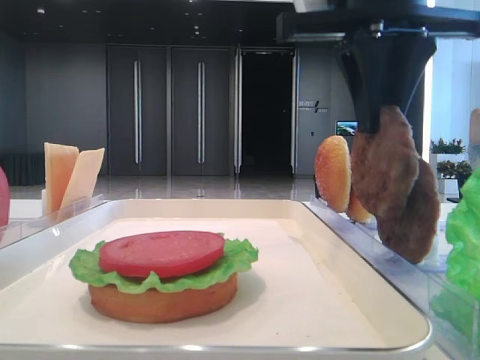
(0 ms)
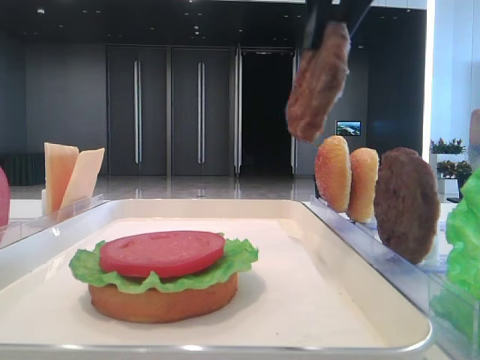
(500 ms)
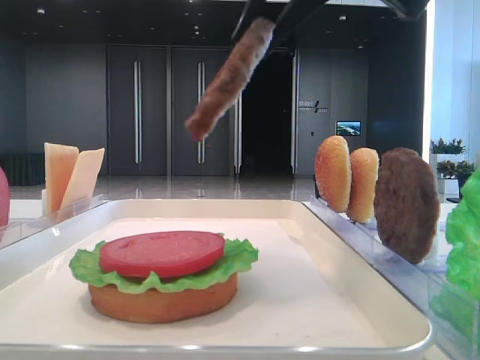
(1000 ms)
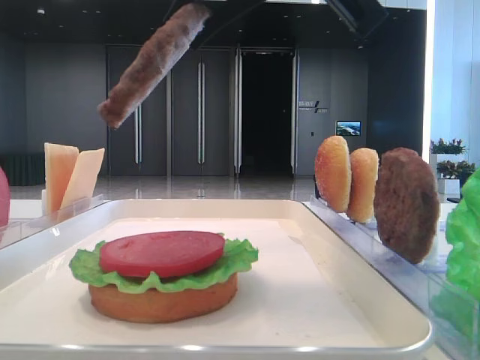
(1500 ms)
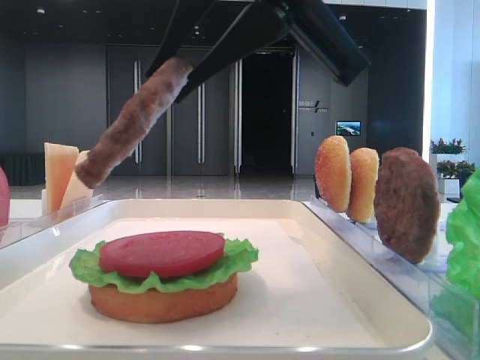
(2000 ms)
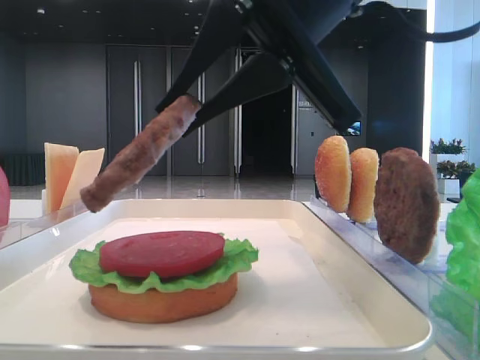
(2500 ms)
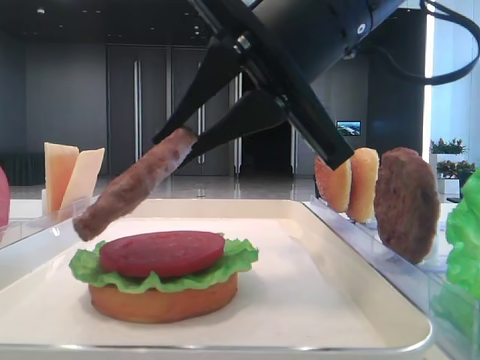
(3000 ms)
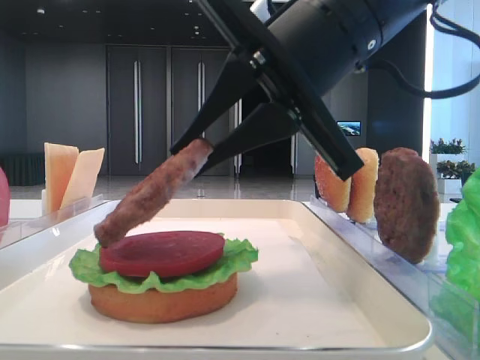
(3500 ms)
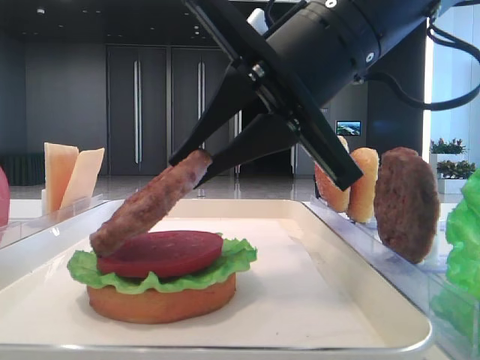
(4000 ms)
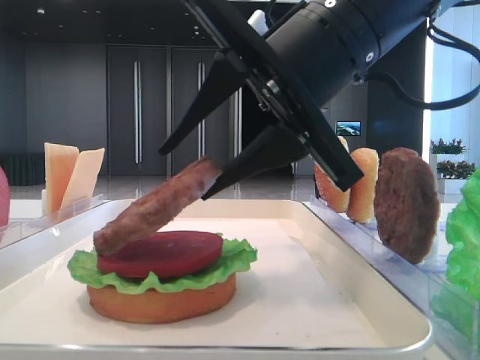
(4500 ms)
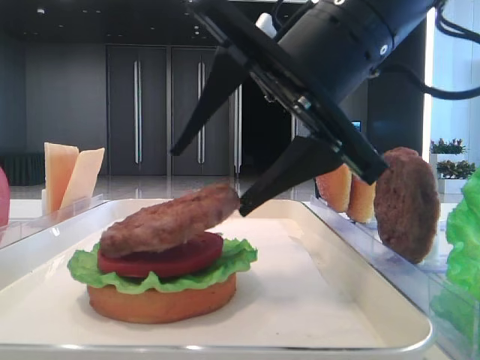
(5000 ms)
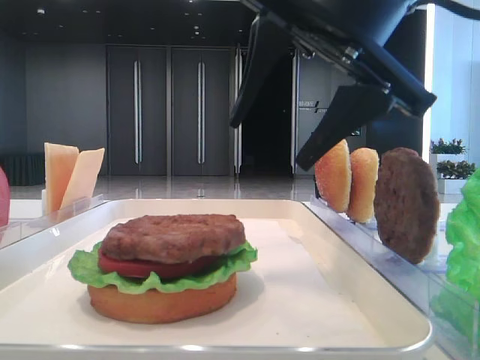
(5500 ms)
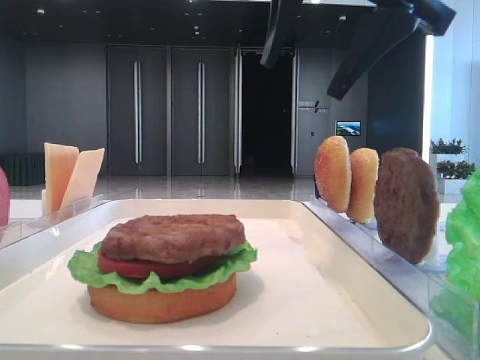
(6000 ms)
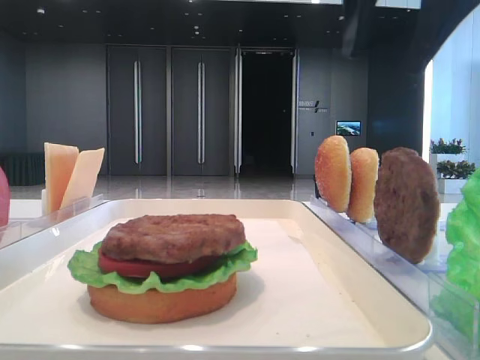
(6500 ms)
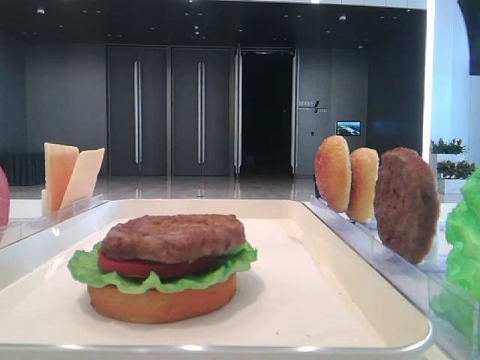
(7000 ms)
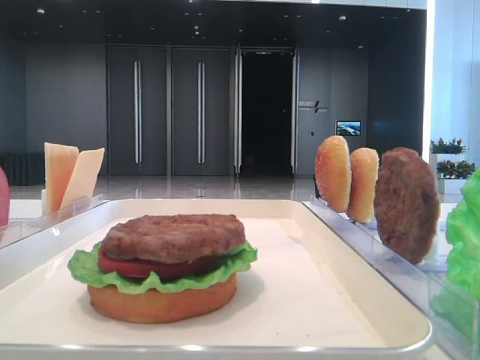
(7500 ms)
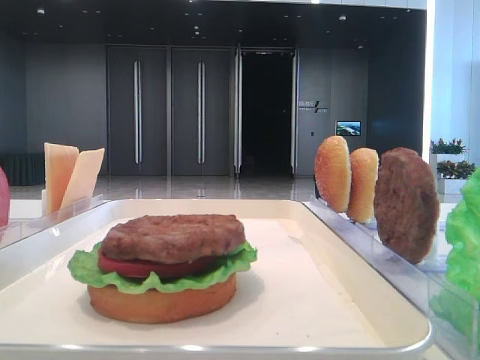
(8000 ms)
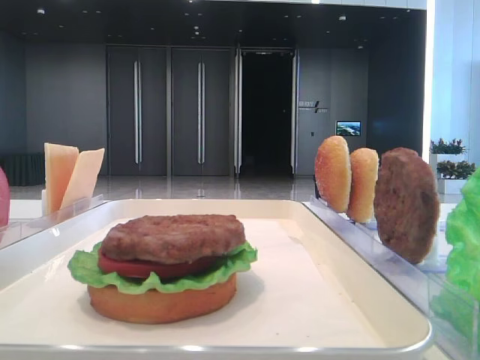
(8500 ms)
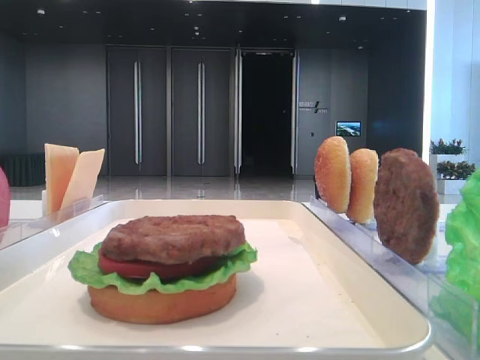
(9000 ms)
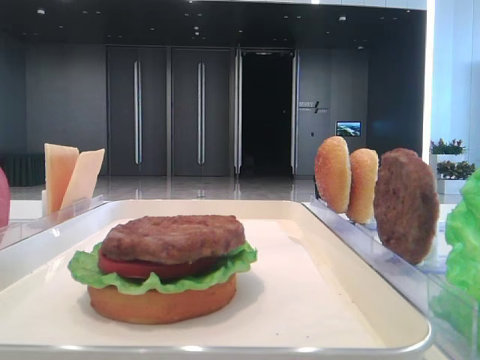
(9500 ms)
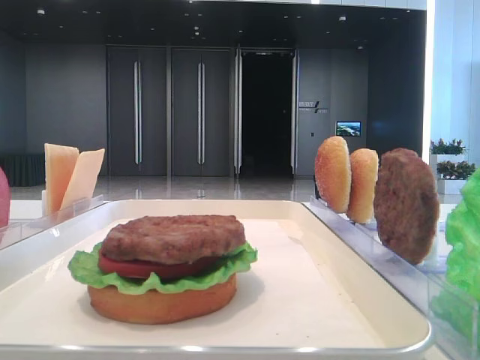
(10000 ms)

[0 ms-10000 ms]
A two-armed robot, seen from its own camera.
Step, 0 ms to 5000 ms: Place the patty on the tomato slice with the right hand.
0 ms to 2000 ms: The right gripper is displaced backward and to the left by some 10 cm.
2000 ms to 4000 ms: The right gripper travels downward and forward by approximately 10 cm.
4000 ms to 6000 ms: The right gripper travels upward by about 10 cm, and opens.
6000 ms to 8000 ms: The right gripper heads to the right, covering about 20 cm.

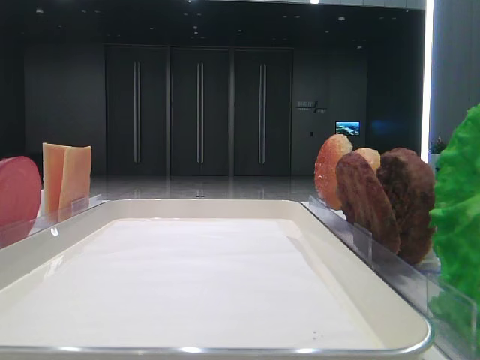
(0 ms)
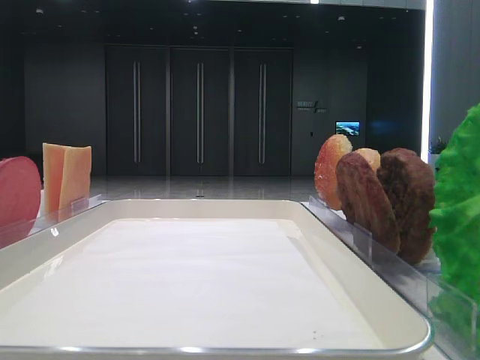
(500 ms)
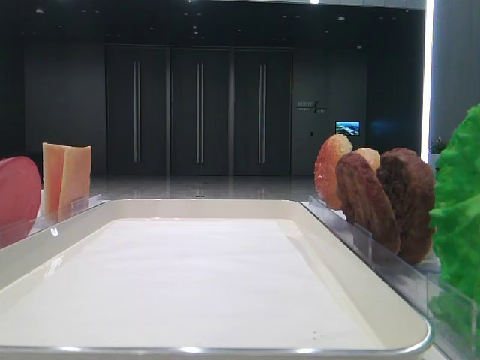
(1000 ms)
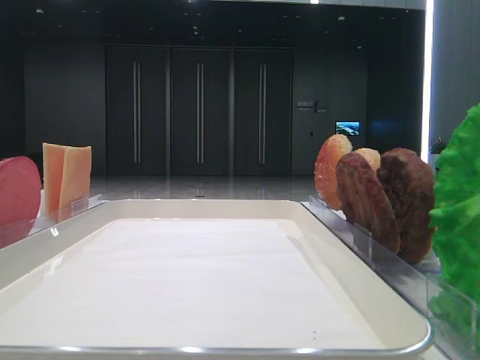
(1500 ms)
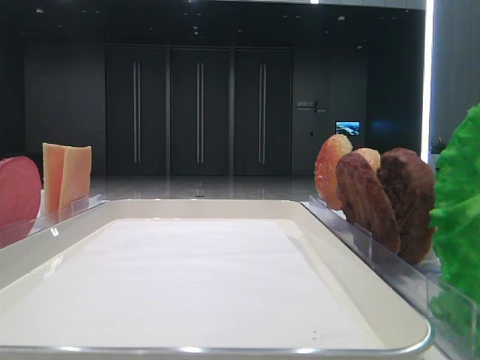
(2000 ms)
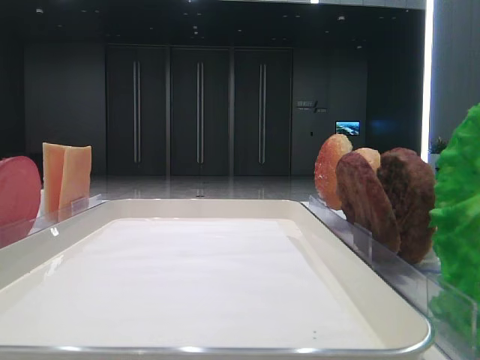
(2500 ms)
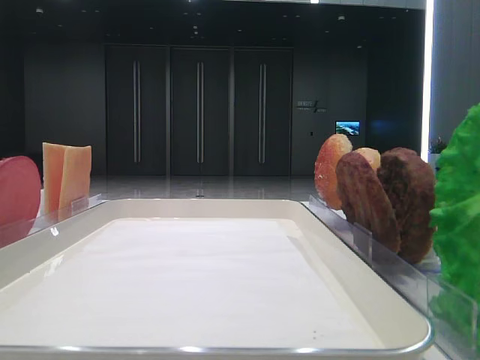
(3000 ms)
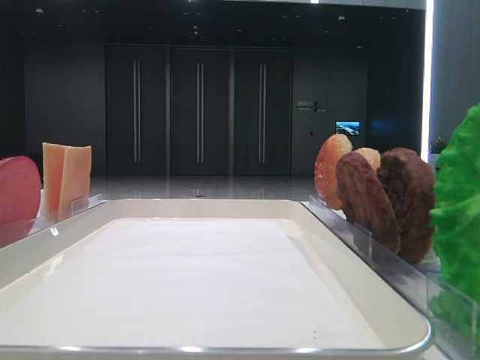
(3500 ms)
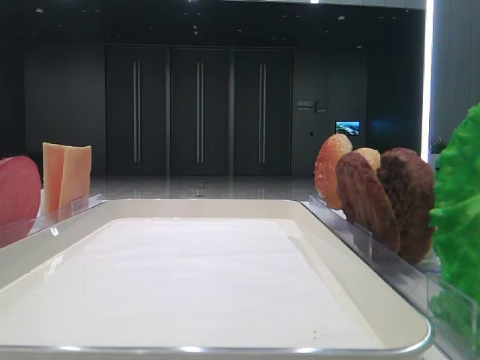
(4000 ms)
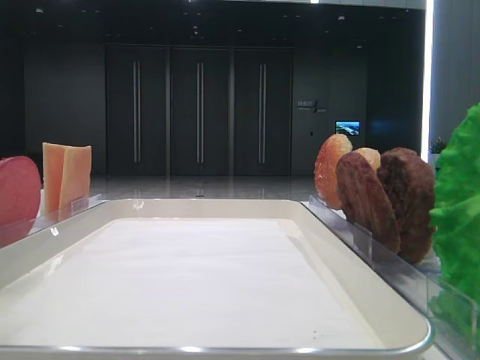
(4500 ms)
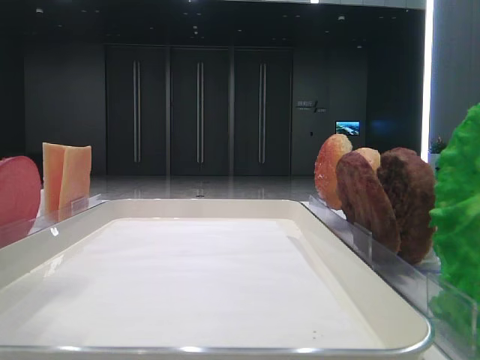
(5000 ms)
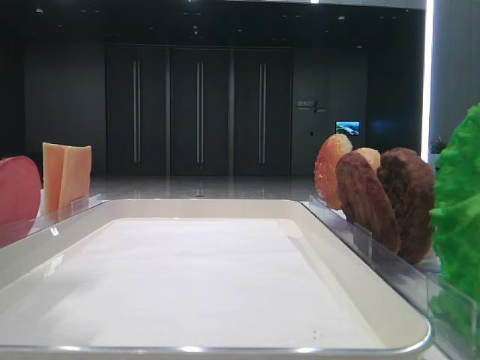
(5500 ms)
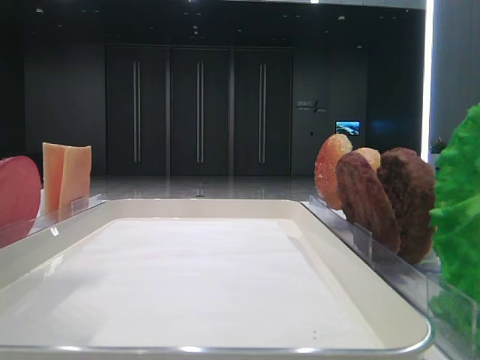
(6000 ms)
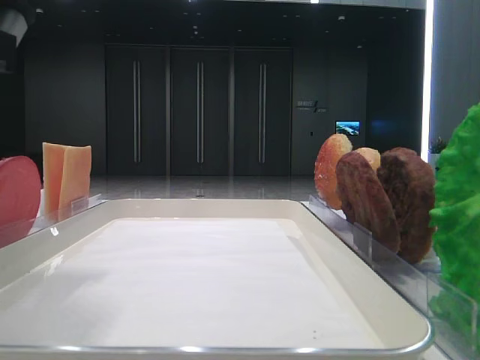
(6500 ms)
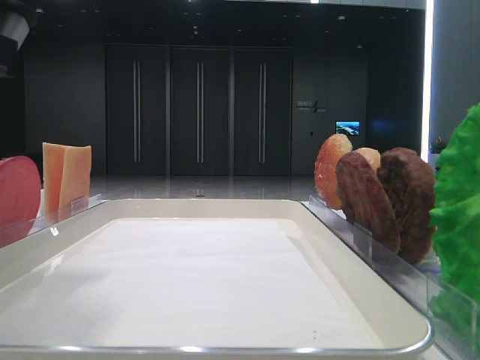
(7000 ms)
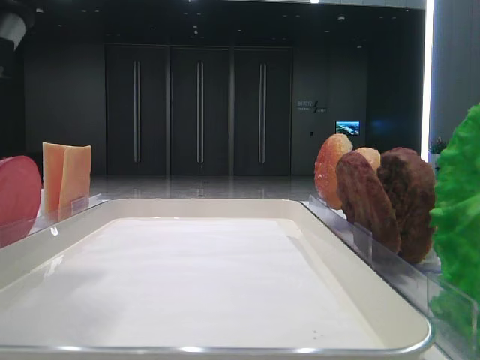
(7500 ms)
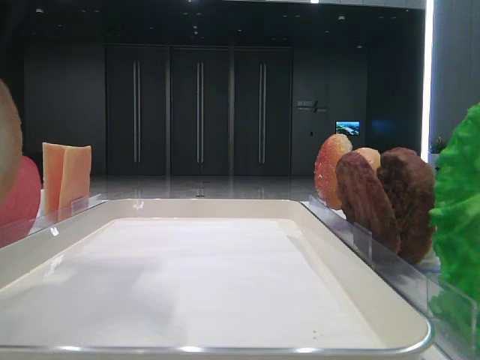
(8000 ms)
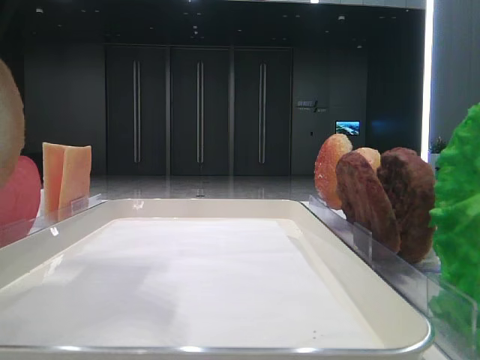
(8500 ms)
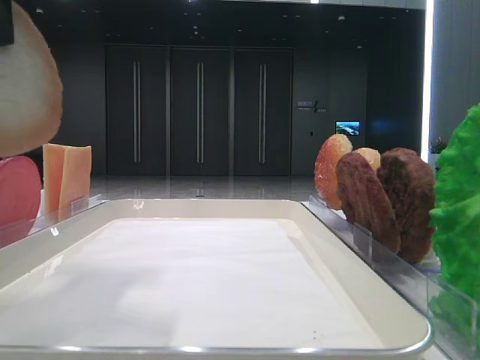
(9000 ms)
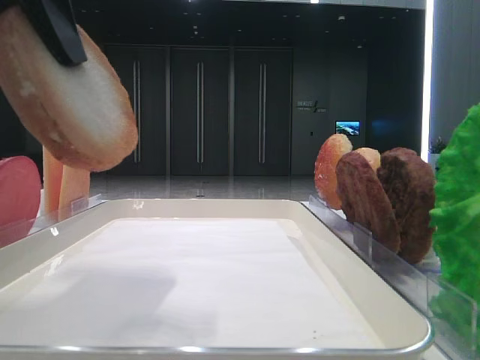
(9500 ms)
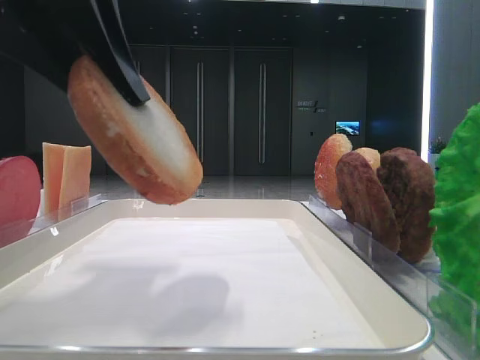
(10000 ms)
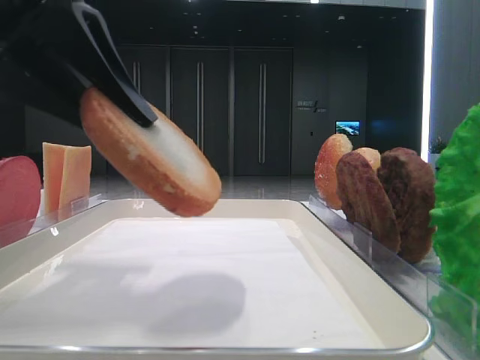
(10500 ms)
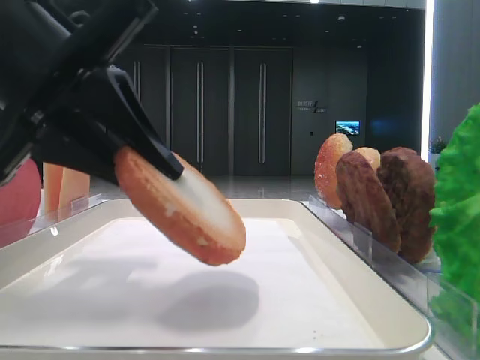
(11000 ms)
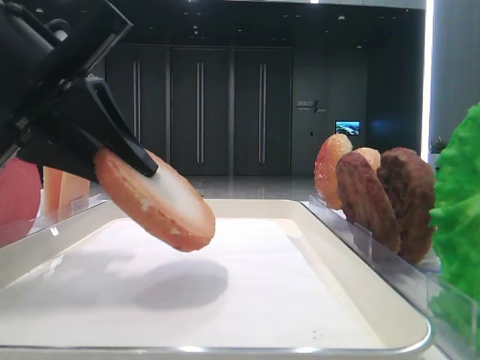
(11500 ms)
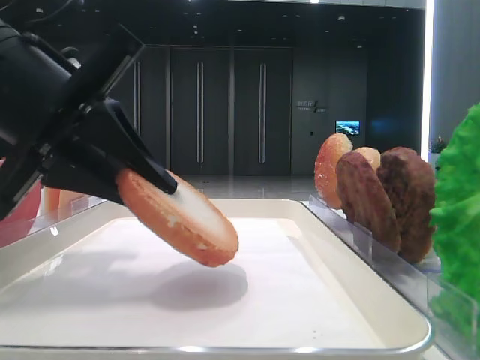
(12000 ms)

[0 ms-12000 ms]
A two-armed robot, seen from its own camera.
Step, 0 ms to 7000 ms: Pick up the bottom bread with the left hand.
4000 ms to 6000 ms: The left gripper moves to the right, roughly 15 cm.
6000 ms to 8000 ms: The left gripper closes its fingers.
10000 ms to 12000 ms: The left gripper is displaced downward by roughly 10 cm.

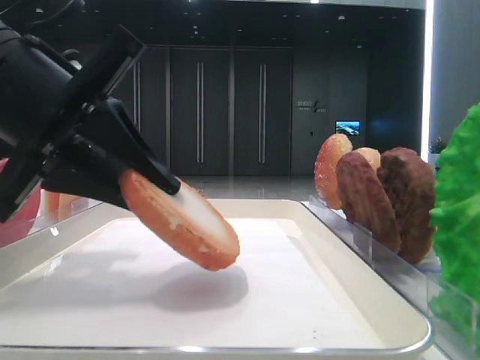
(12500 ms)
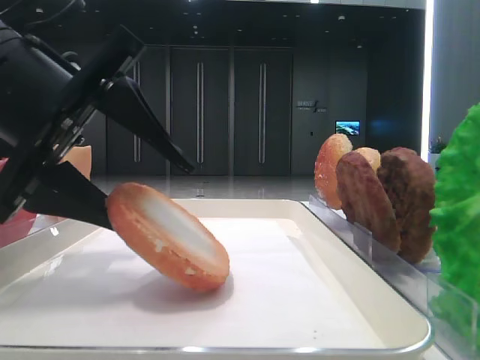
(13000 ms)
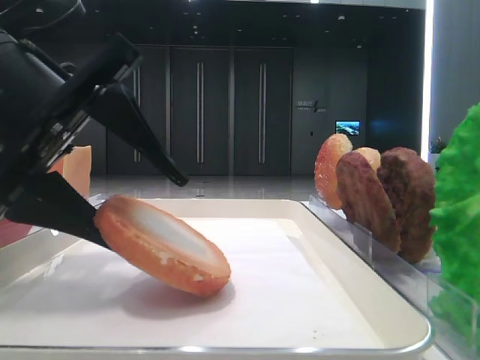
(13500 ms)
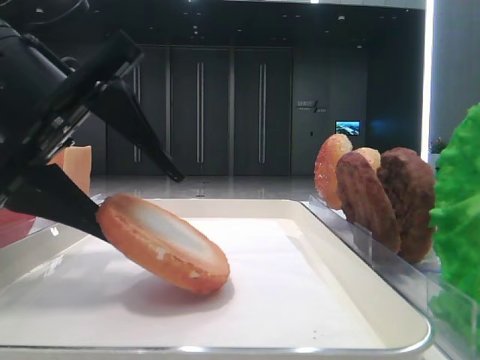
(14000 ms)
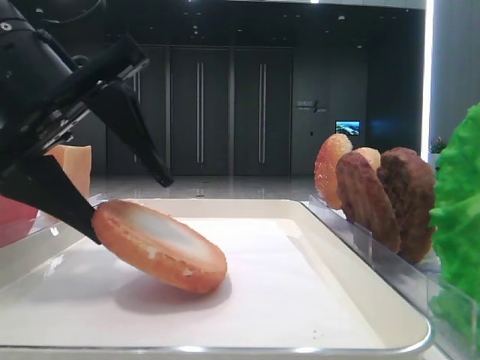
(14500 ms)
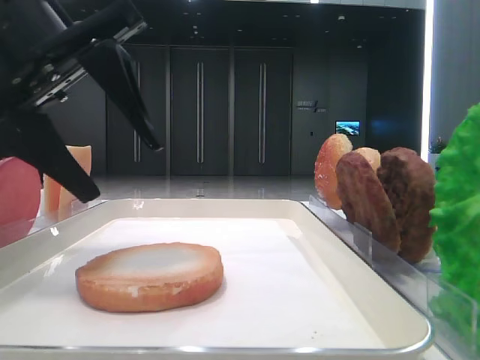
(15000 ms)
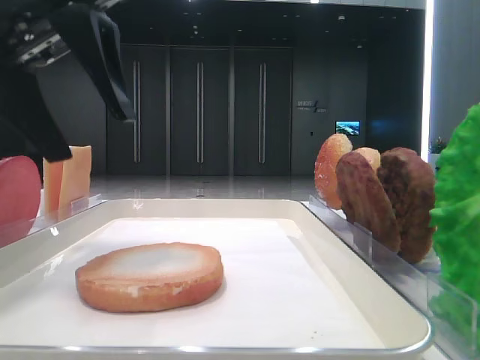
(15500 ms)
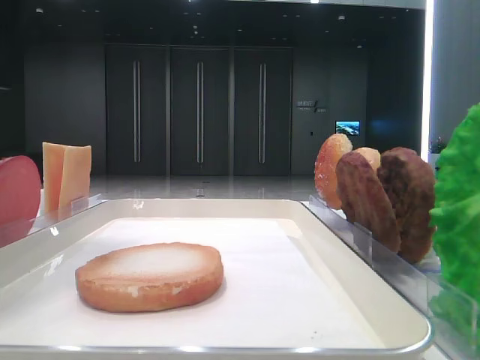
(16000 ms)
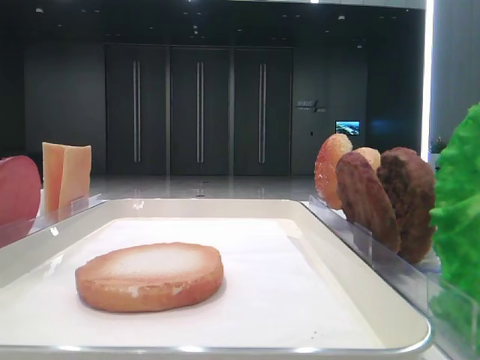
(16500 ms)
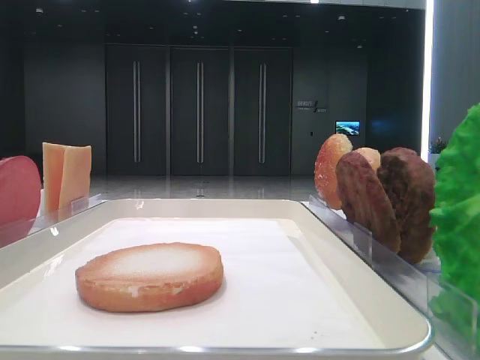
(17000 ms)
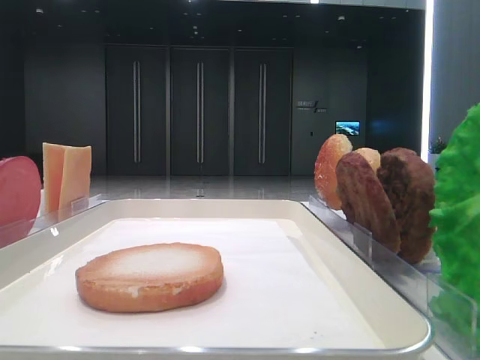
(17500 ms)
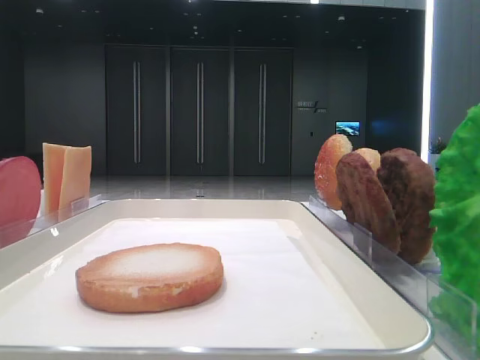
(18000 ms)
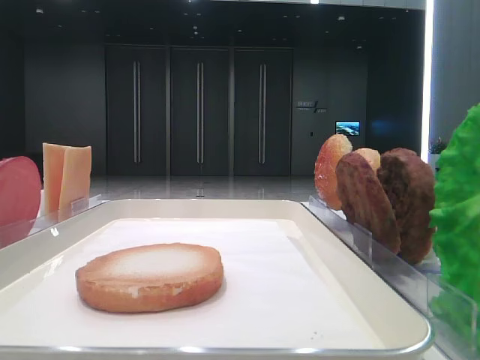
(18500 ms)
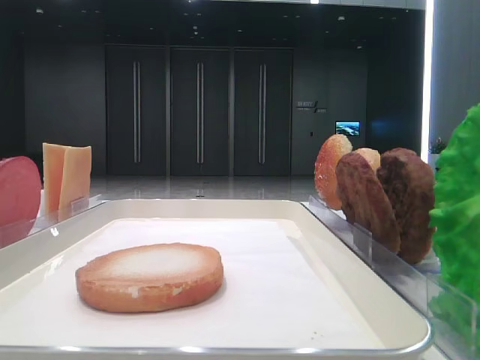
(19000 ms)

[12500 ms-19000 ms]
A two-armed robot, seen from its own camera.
Step, 12500 ms to 14500 ms: Place the bread on the tray with the left hand.
12500 ms to 14500 ms: The left gripper opens up.
14500 ms to 17000 ms: The left gripper is displaced upward and to the left by some 25 cm.
